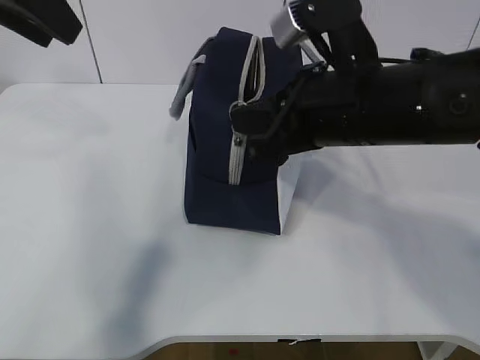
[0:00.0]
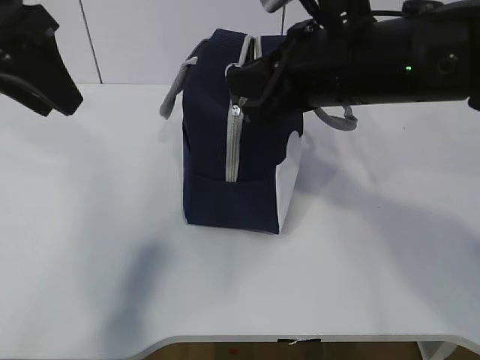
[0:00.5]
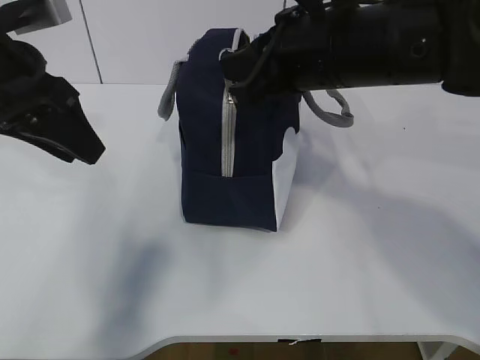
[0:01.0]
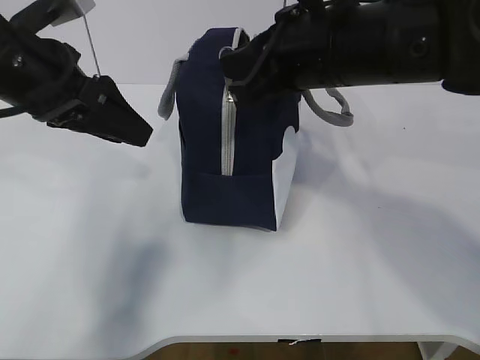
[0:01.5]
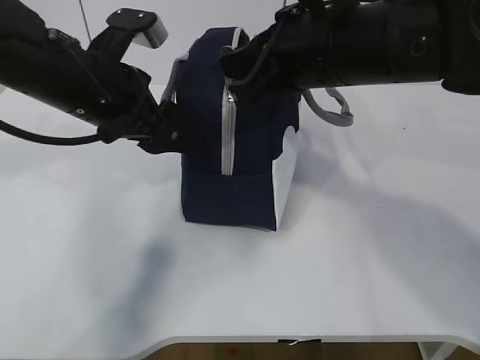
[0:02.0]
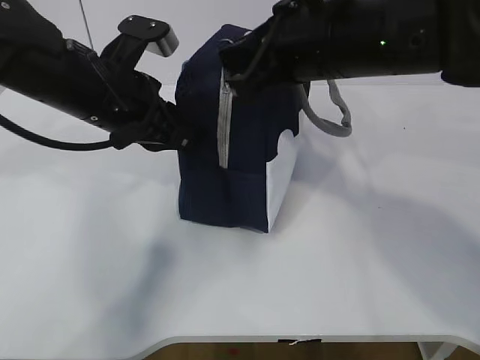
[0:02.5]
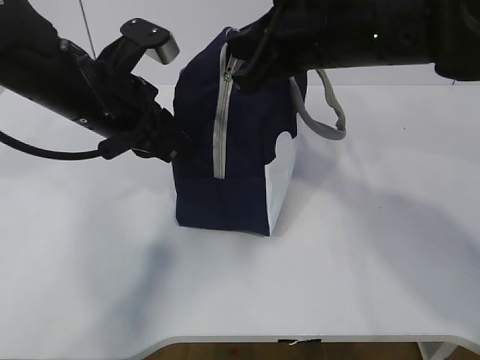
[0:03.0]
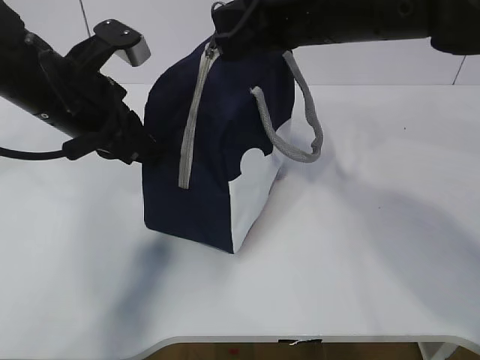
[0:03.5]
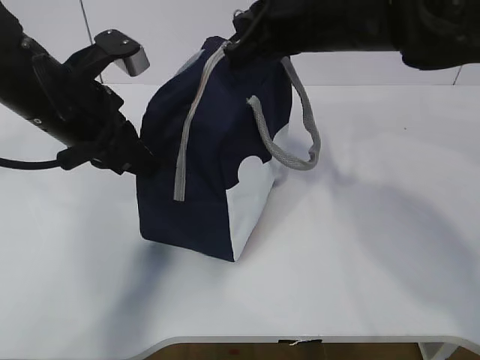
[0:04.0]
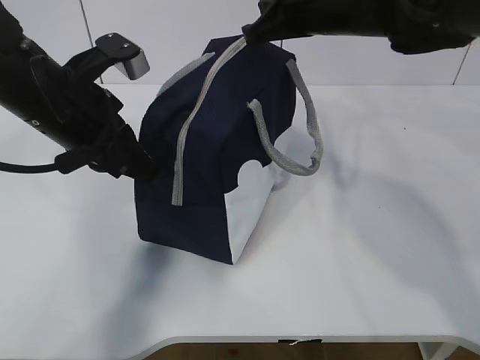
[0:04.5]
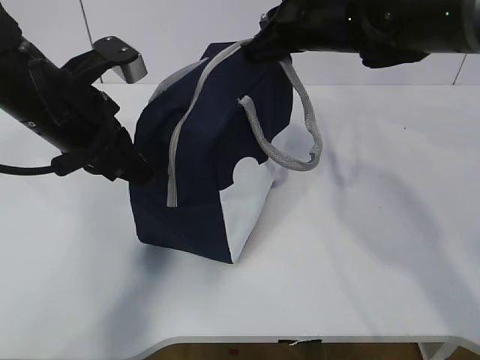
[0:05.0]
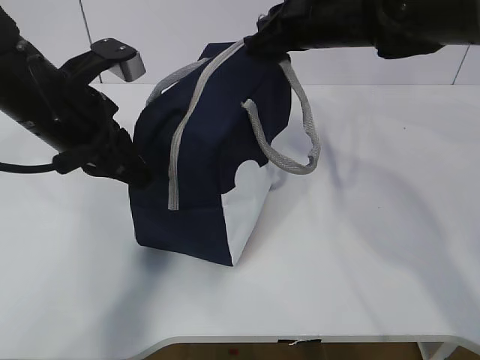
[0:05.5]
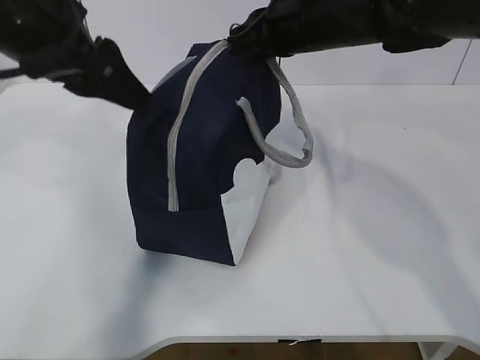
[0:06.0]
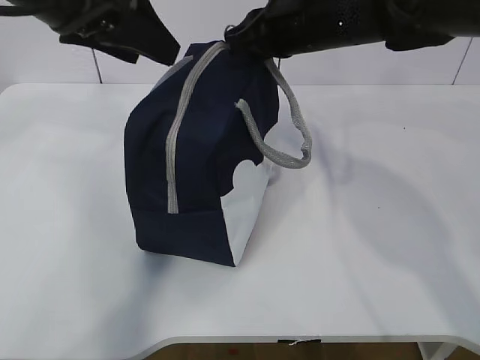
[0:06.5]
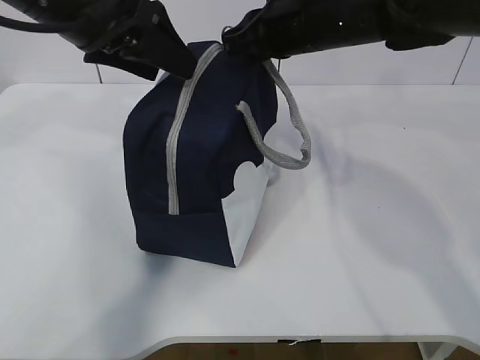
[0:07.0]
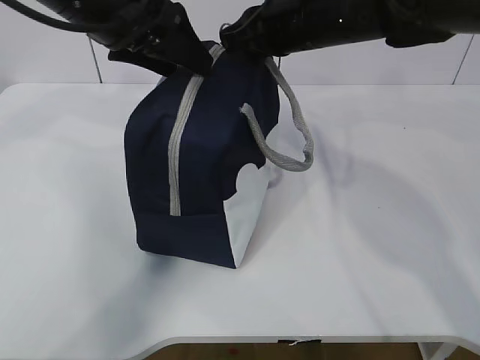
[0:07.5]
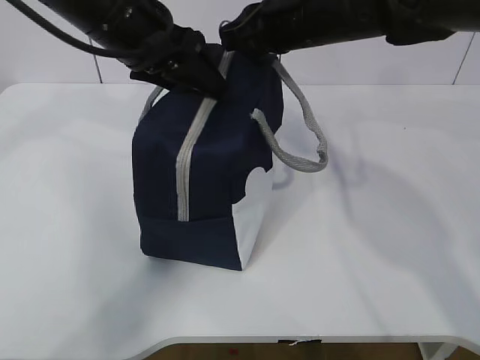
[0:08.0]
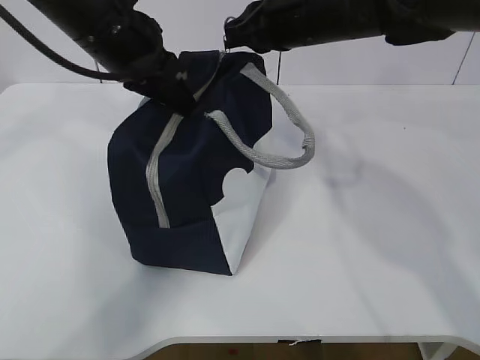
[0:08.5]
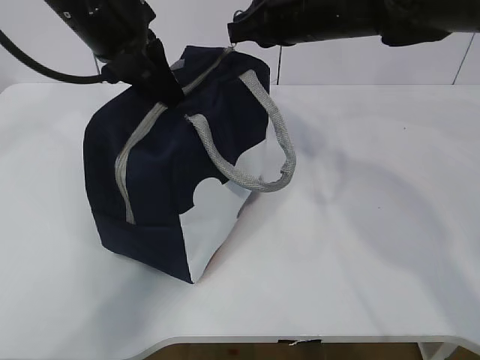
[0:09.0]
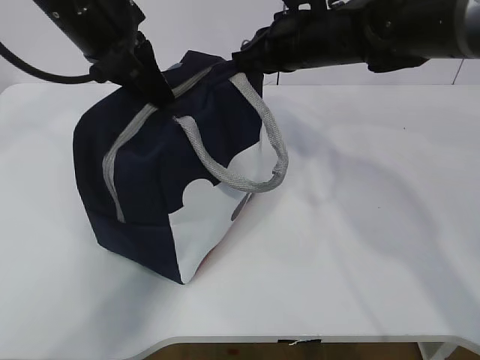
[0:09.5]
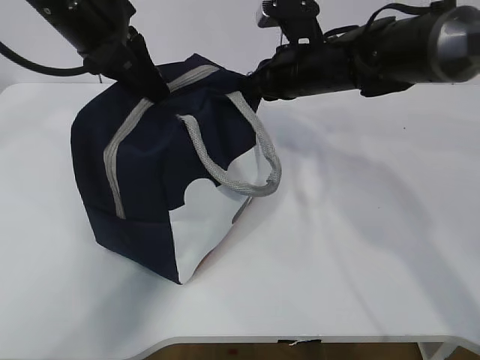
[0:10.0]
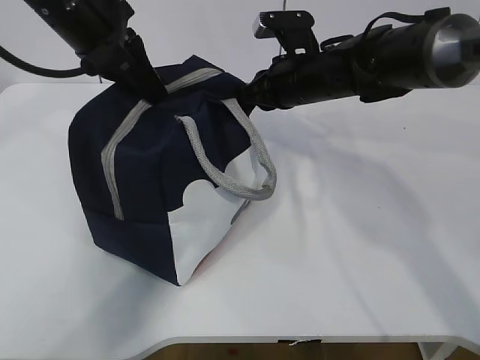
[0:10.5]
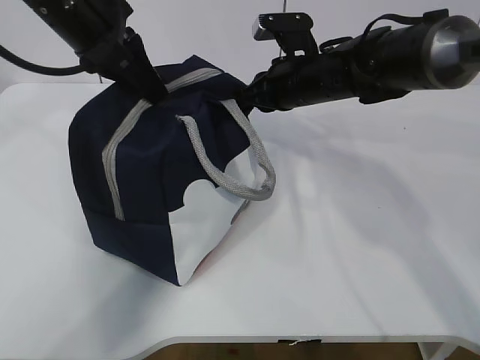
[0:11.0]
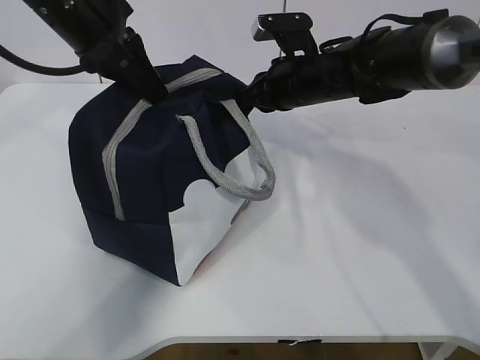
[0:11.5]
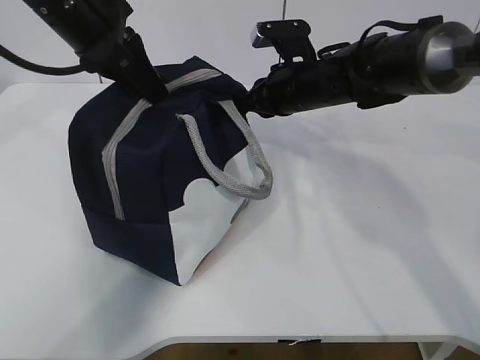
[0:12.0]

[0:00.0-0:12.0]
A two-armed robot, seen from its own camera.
0:00.0 to 0:02.0: The left gripper heads downward and to the right, covering roughly 15 cm. Meanwhile the right gripper shifts by some 5 cm.
0:02.0 to 0:04.0: The left gripper closes up.
0:04.0 to 0:06.0: The right gripper shifts approximately 5 cm forward. Meanwhile the left gripper travels upward by some 10 cm, and opens its fingers.
0:06.0 to 0:08.0: The left gripper shifts roughly 10 cm forward and to the right.
0:08.0 to 0:10.0: The left gripper closes its fingers, while the right gripper is displaced downward by approximately 10 cm.
0:10.0 to 0:12.0: The grippers stay close to where they were, moving slightly.

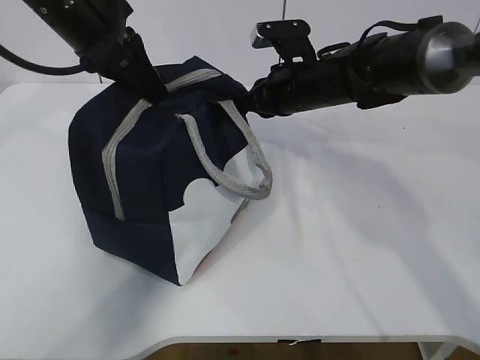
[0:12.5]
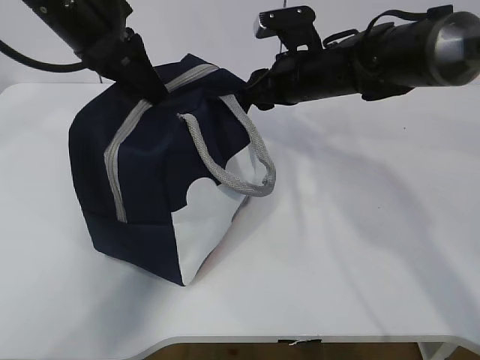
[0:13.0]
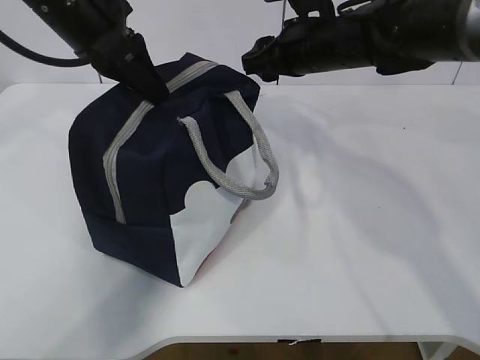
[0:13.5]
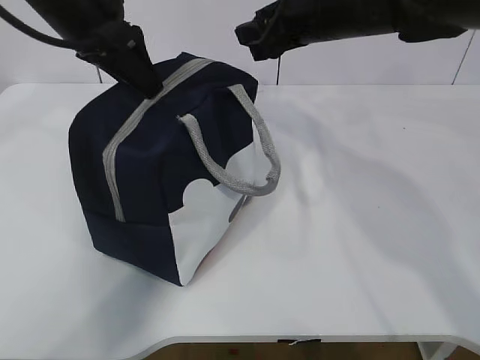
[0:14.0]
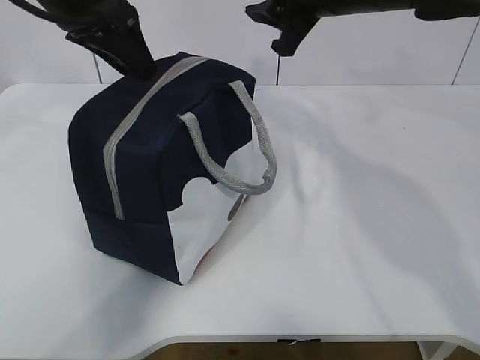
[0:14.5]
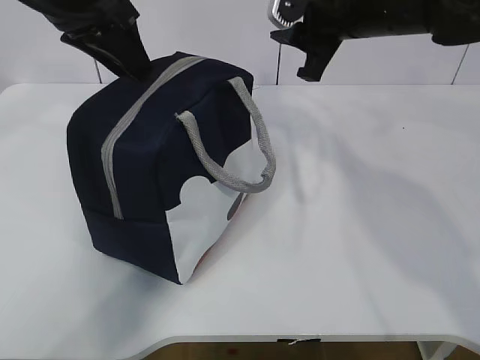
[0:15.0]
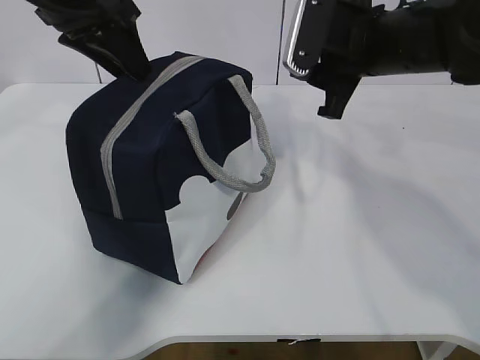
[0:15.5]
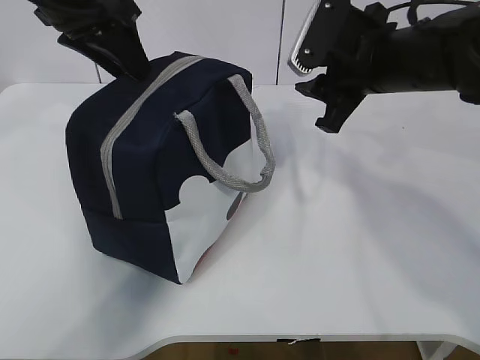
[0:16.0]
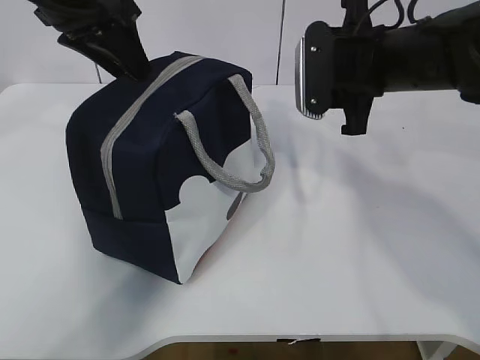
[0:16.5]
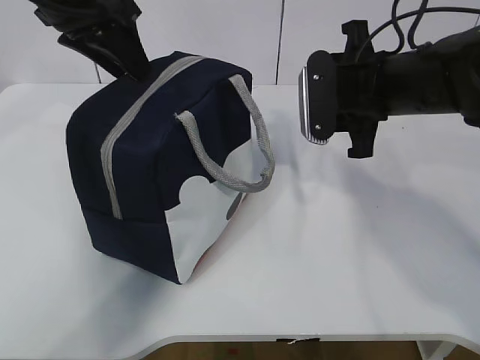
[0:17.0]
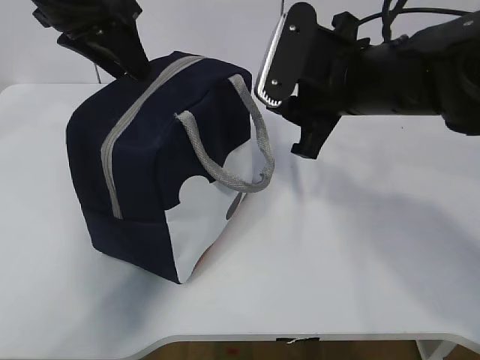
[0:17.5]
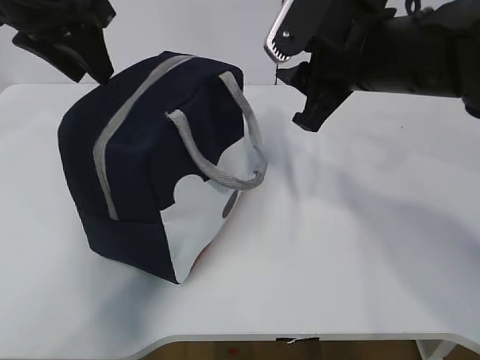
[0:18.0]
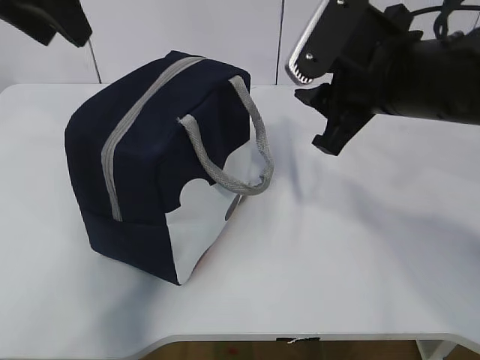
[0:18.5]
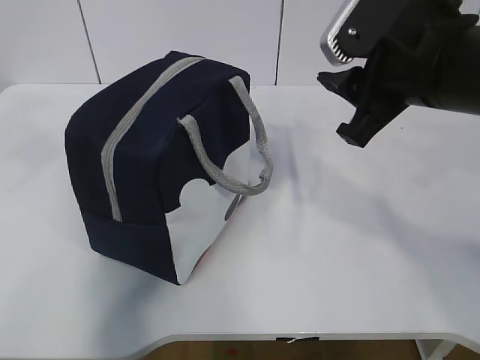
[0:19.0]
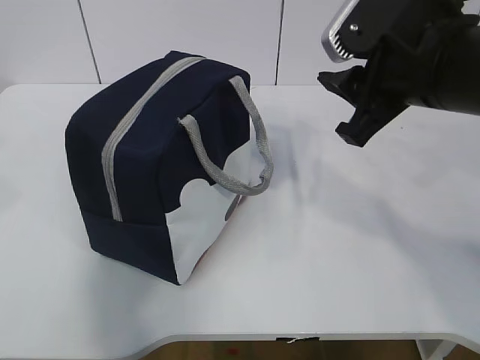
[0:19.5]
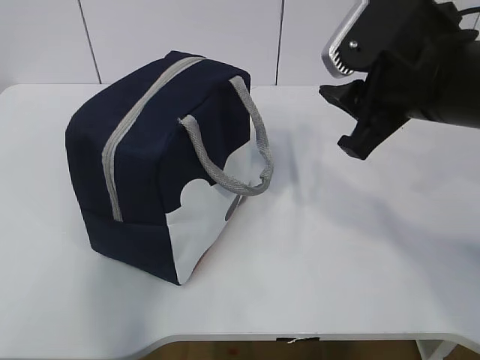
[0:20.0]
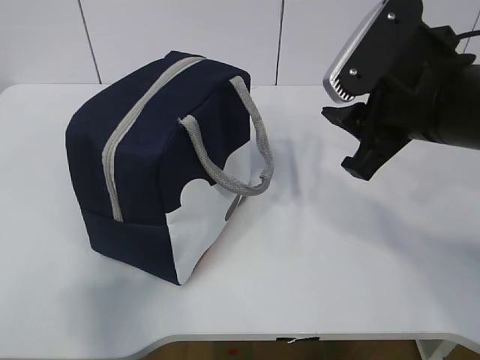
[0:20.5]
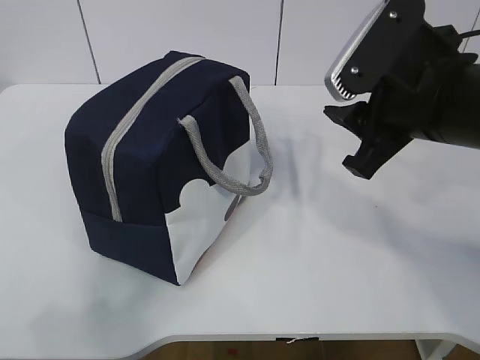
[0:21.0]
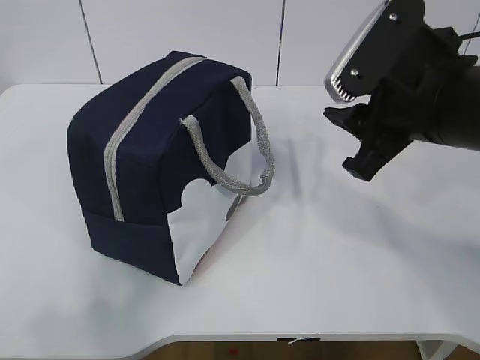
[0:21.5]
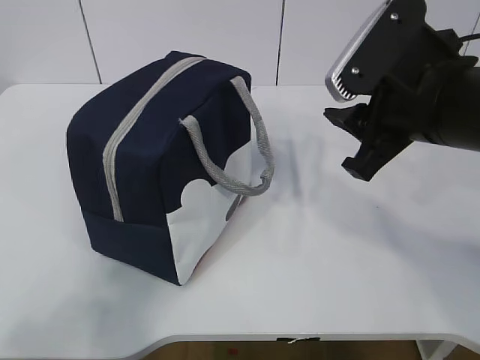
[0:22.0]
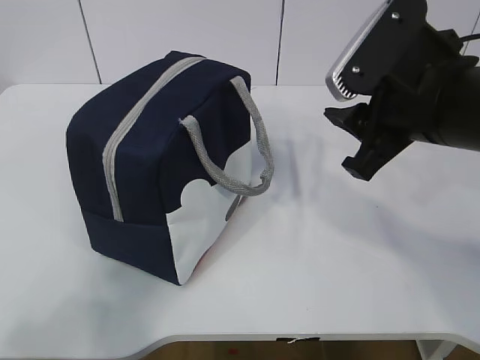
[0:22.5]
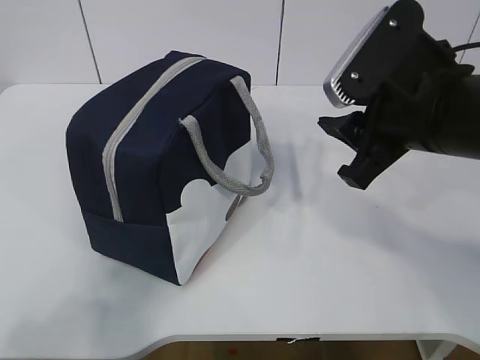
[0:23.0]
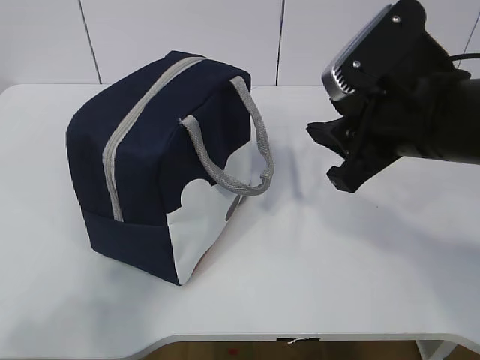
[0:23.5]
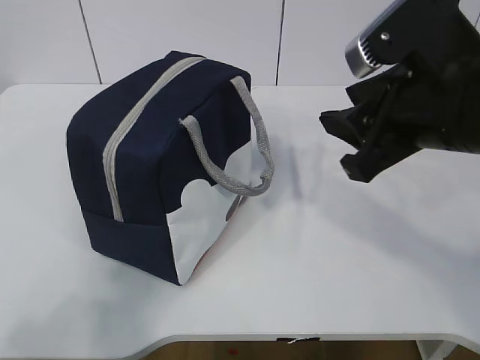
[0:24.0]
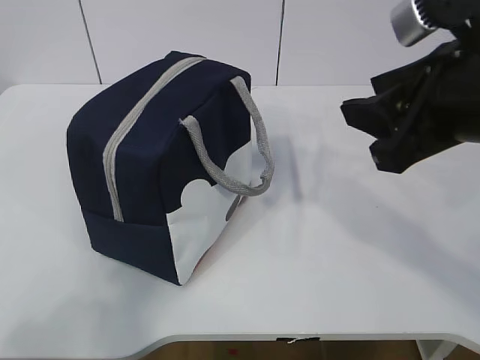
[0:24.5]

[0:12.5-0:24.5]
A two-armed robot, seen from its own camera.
0:12.5 to 0:14.5: The right gripper is displaced upward by some 15 cm, and opens. The left gripper opens.
0:14.5 to 0:16.5: The right gripper moves backward and downward, roughly 10 cm.
0:16.5 to 0:18.5: The left gripper is displaced upward by approximately 5 cm. Meanwhile the right gripper moves backward, some 5 cm.
0:18.5 to 0:20.5: The left gripper moves backward, about 30 cm.
0:22.5 to 0:24.5: The right gripper shifts by some 5 cm.

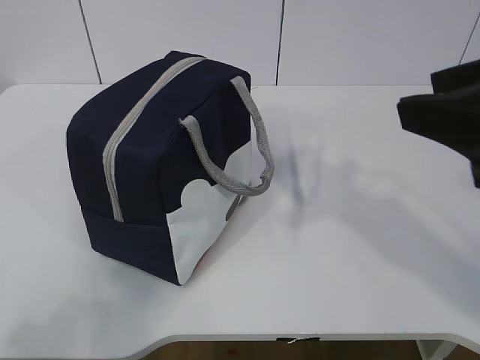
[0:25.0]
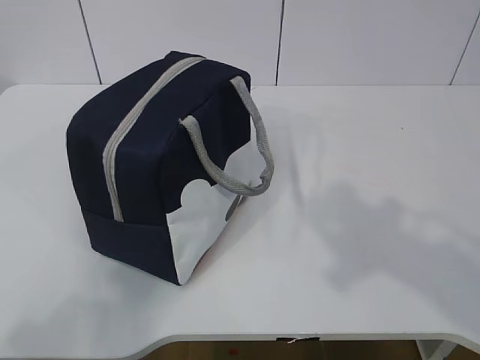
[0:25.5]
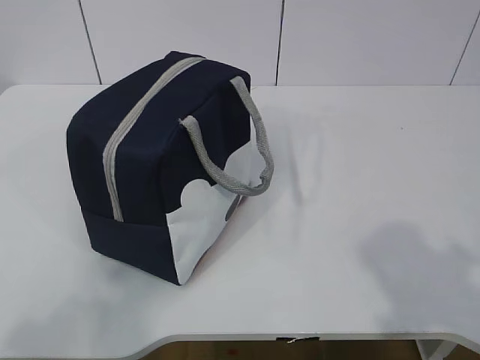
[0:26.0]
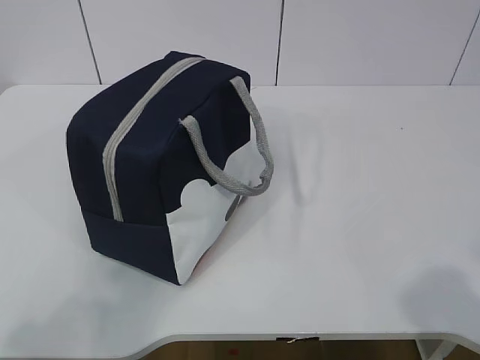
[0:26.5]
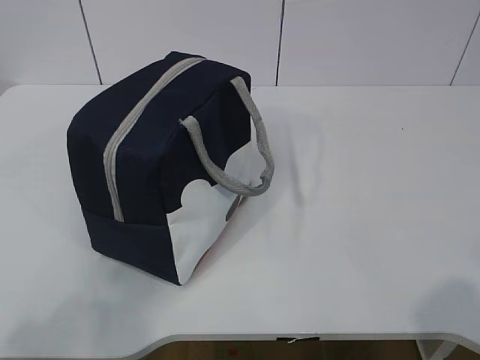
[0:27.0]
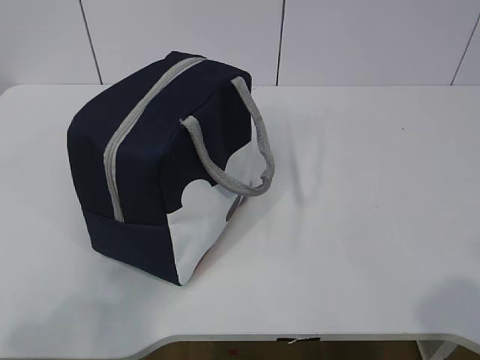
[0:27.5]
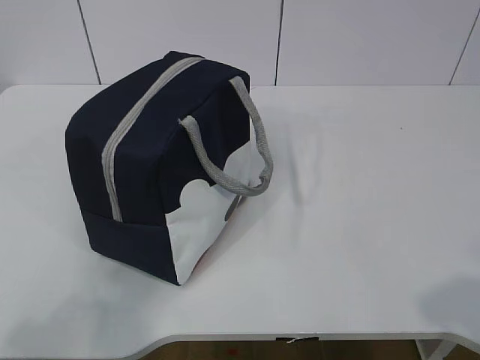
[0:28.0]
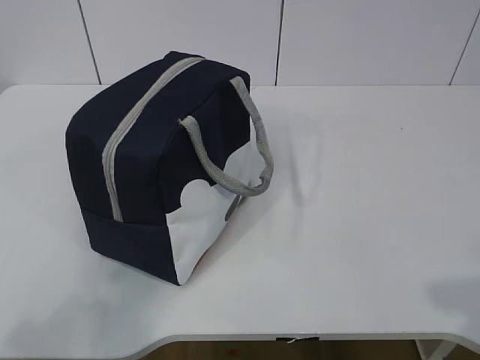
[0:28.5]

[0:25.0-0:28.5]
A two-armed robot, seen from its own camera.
0:25.0 to 0:27.0: The right gripper goes roughly 20 cm backward, to the right and downward.
